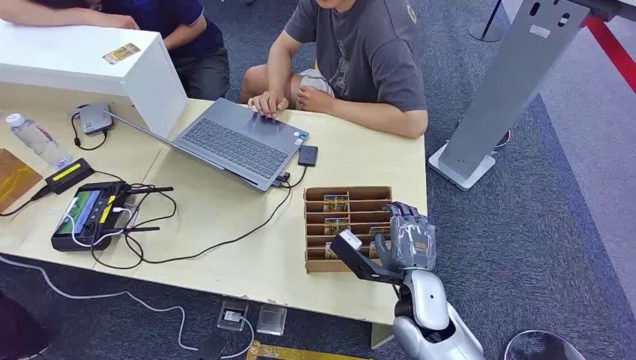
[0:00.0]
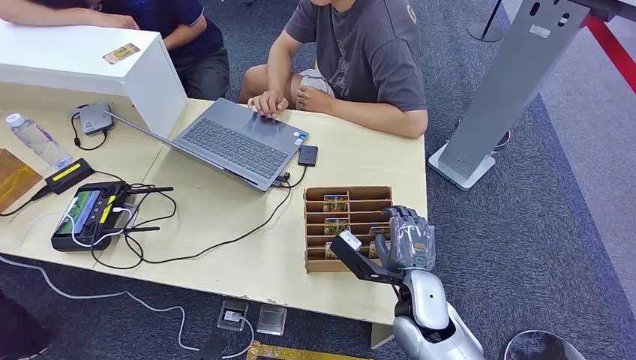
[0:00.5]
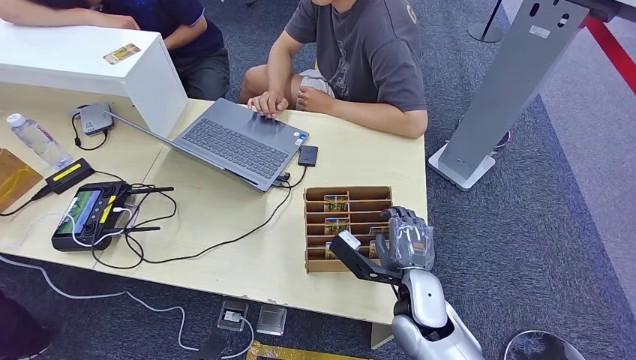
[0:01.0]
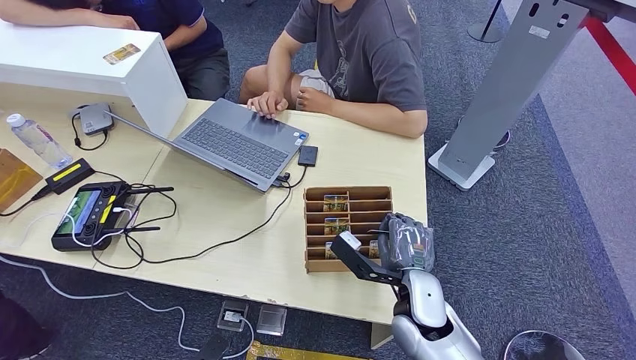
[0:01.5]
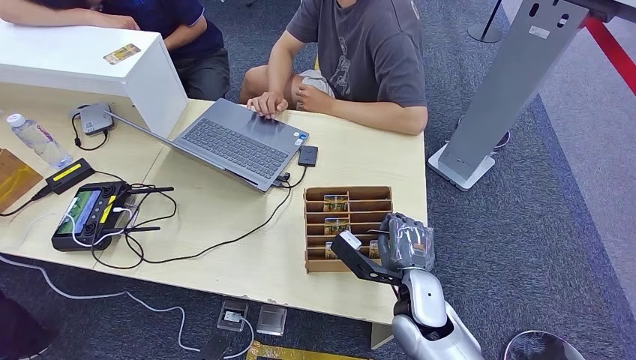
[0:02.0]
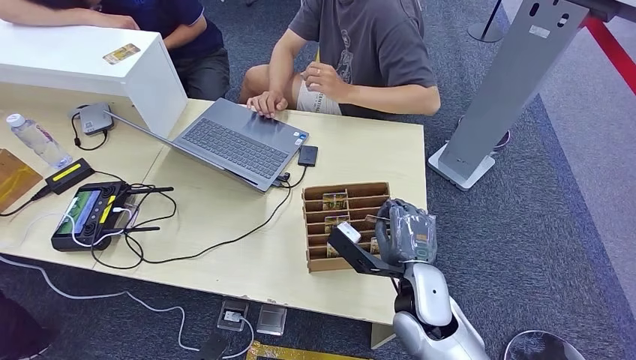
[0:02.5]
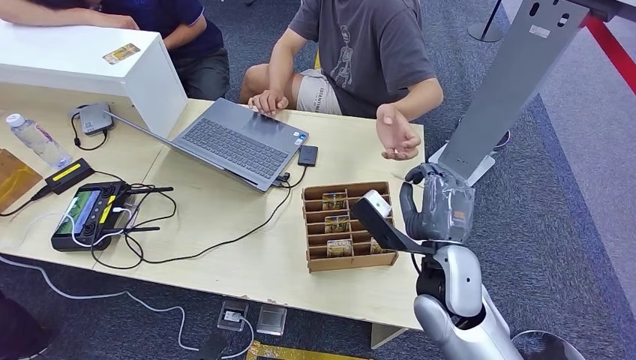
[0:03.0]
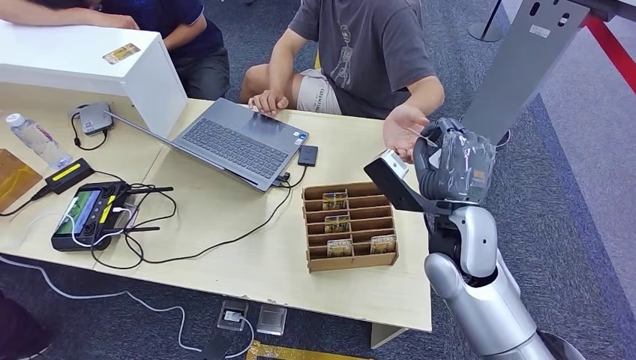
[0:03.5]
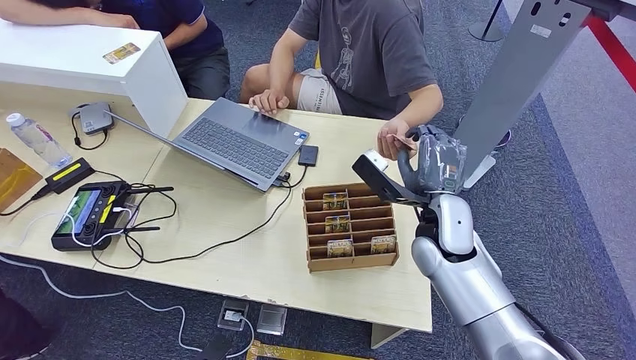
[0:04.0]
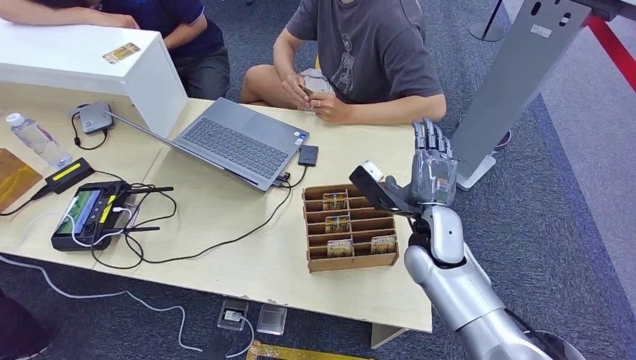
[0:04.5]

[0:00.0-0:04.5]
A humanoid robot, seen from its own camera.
Step, 0:00.0 to 0:02.5: Pick up the key card from the card box.
Step, 0:03.0 to 0:04.5: Hand the key card to the target.
0:02.0 to 0:04.5: The right hand moves forward and upward, roughly 10 cm.
